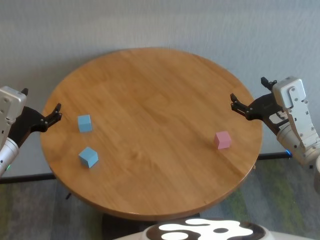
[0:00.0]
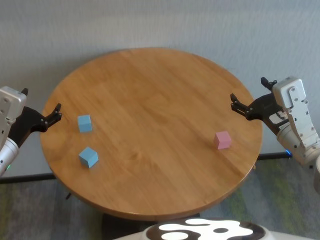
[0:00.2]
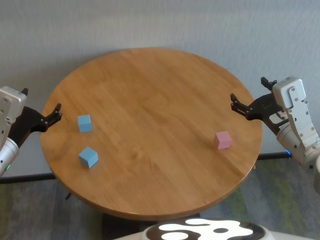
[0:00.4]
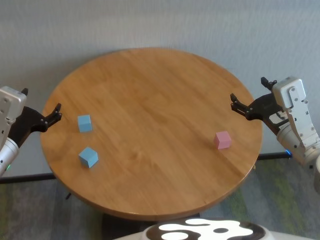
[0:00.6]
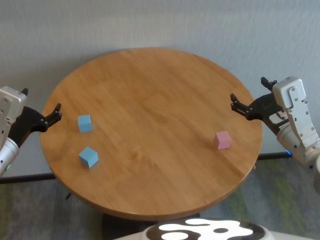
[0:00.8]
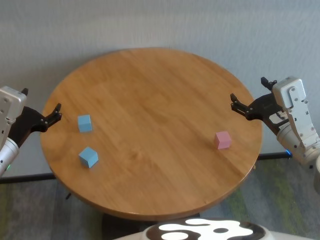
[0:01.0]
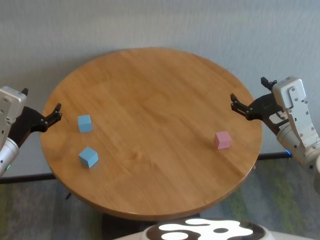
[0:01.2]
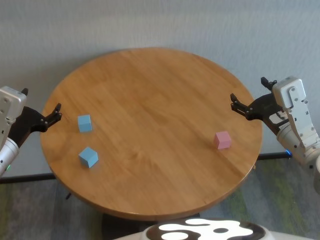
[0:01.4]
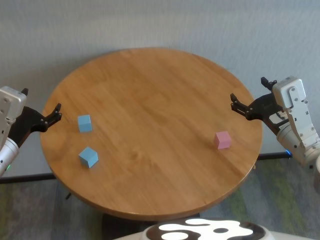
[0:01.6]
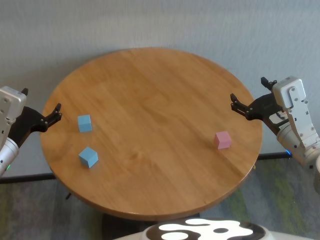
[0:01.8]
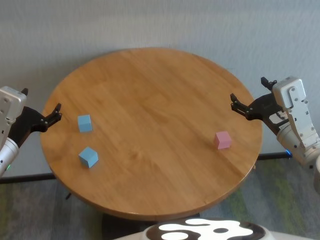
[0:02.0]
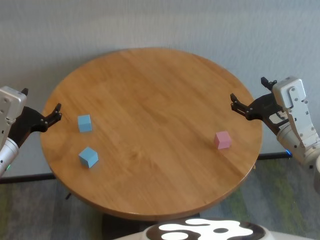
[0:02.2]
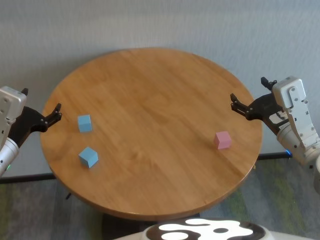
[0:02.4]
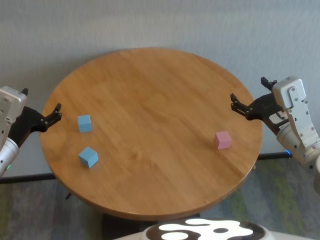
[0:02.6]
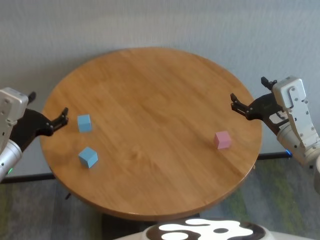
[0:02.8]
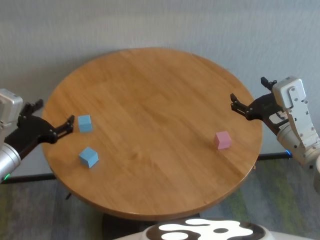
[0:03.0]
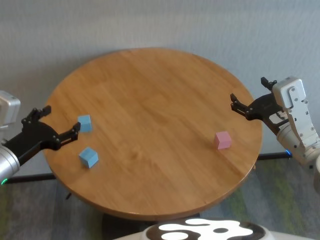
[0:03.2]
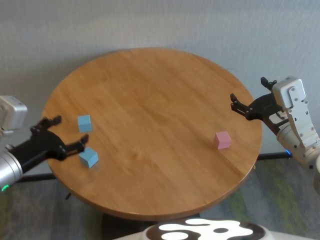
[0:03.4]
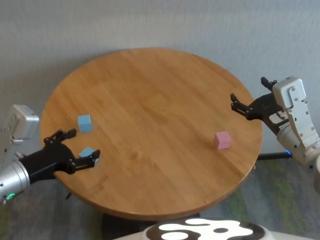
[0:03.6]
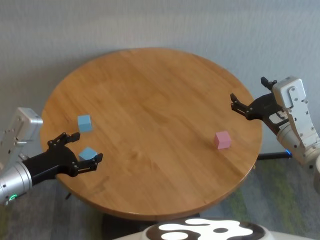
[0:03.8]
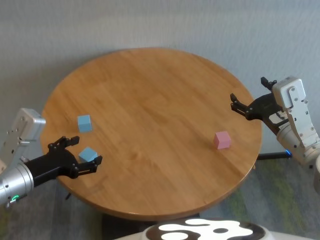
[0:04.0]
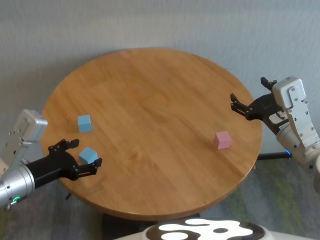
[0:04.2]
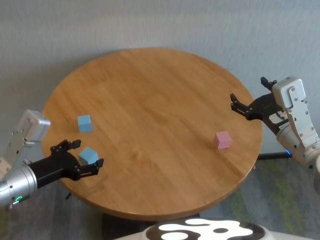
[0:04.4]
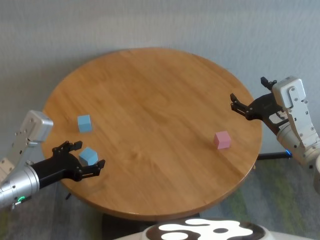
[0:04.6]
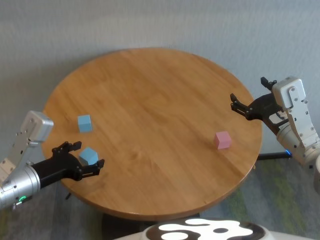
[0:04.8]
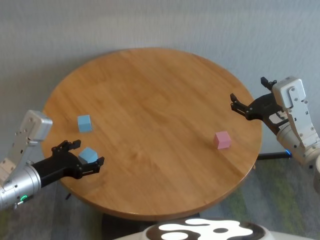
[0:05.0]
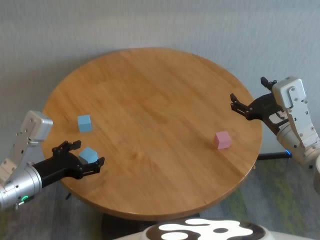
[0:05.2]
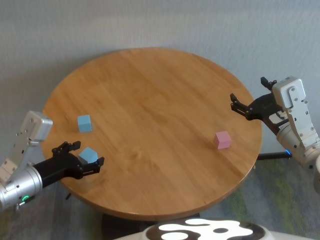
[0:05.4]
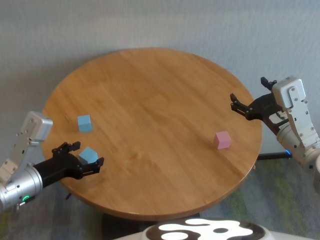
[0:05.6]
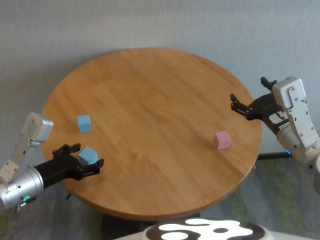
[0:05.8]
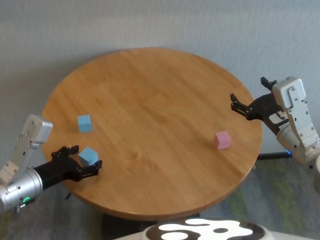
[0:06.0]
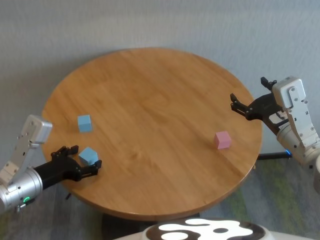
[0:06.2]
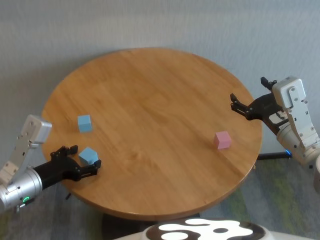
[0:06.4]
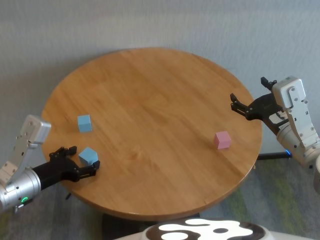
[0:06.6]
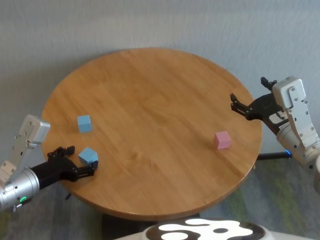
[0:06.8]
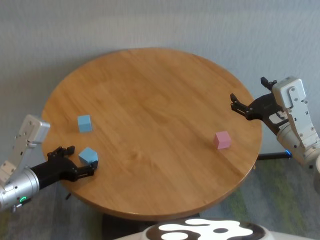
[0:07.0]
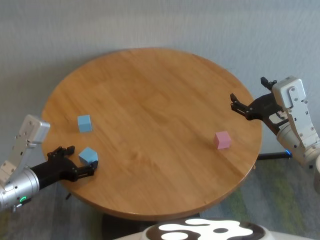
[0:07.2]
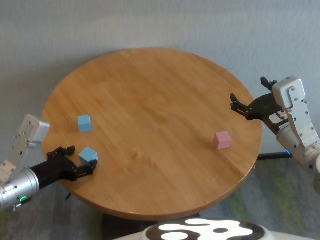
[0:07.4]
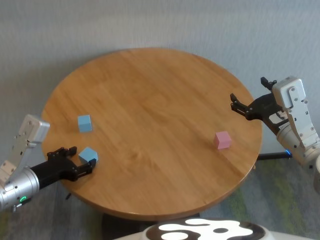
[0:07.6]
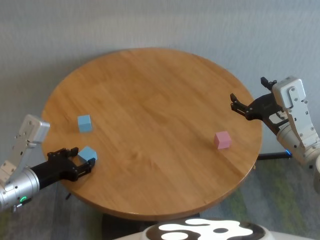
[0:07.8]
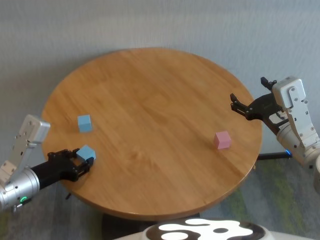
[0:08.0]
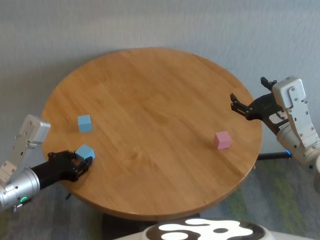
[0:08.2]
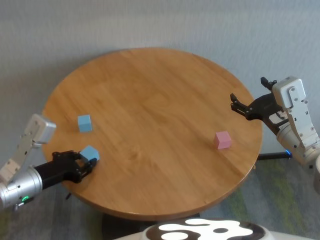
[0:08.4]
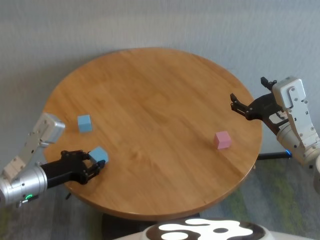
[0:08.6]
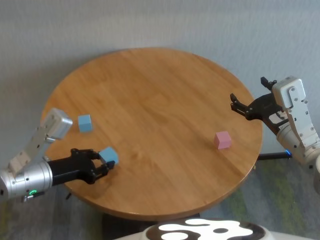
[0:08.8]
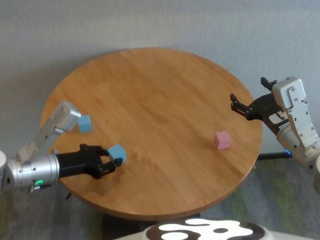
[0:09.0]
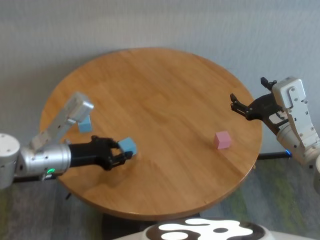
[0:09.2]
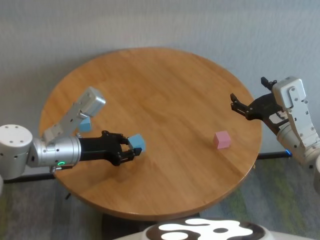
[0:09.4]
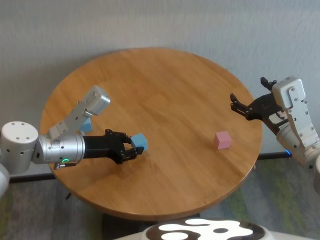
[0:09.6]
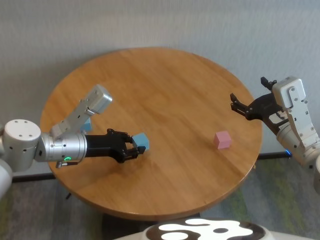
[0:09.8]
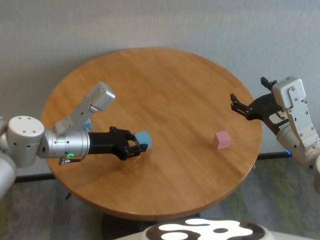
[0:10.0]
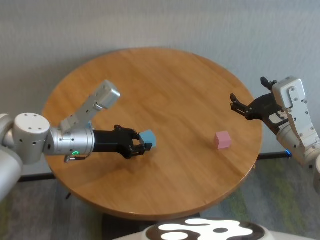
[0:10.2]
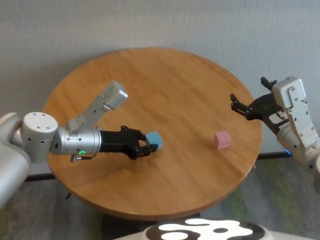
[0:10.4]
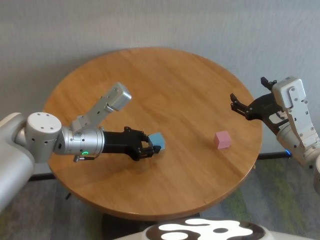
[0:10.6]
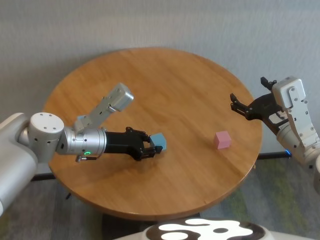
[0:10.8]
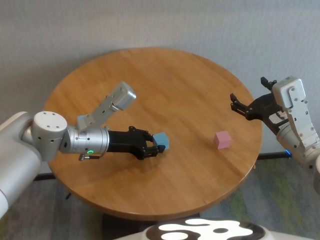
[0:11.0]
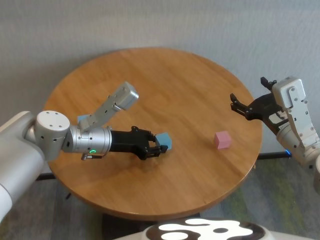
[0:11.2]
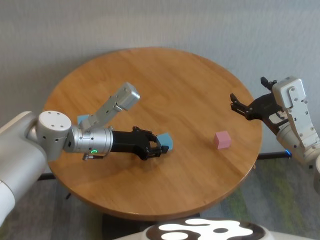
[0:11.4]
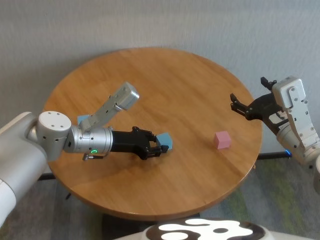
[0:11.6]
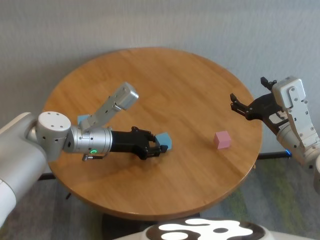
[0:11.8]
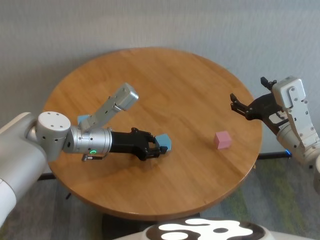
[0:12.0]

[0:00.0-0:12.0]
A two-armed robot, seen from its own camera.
Task of the whole recording: stack building blocks on the table.
Step, 0:00.0 to 0:08.0: Grasp the blue building block with left gripper.

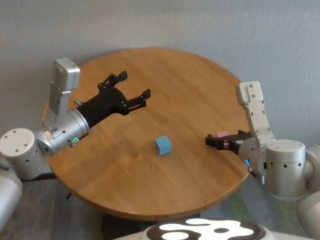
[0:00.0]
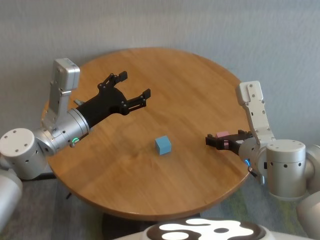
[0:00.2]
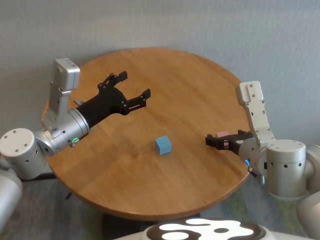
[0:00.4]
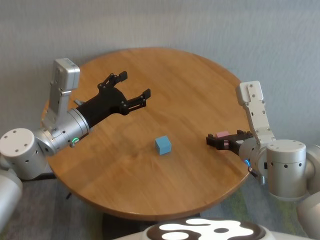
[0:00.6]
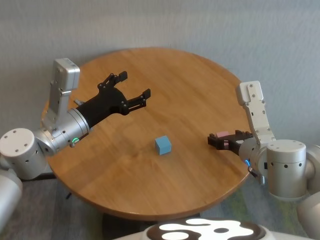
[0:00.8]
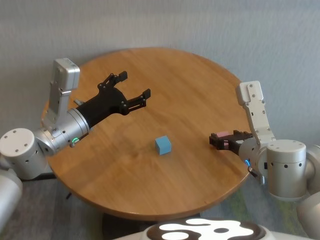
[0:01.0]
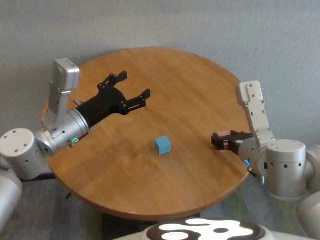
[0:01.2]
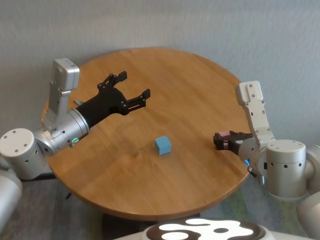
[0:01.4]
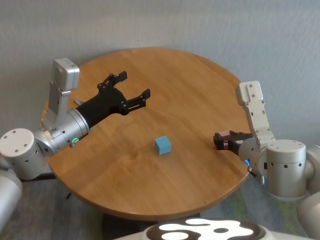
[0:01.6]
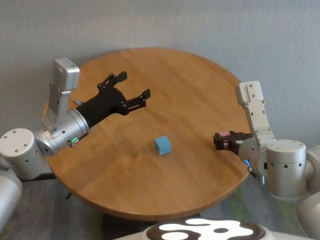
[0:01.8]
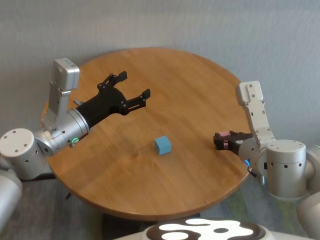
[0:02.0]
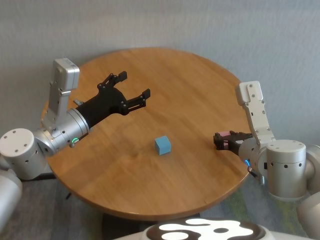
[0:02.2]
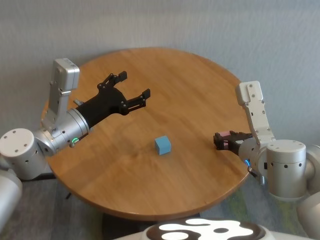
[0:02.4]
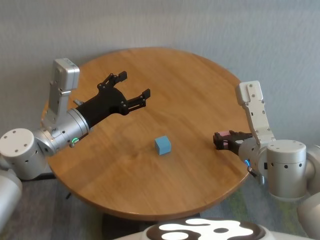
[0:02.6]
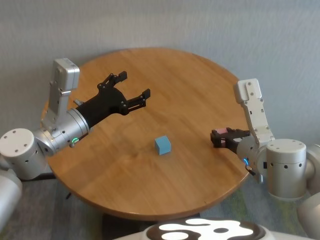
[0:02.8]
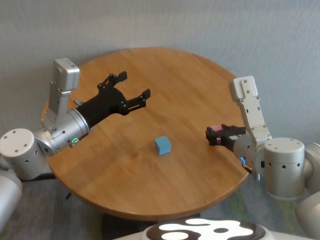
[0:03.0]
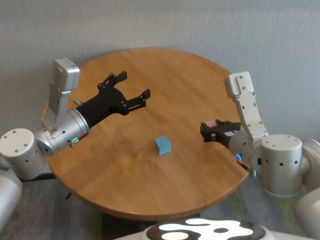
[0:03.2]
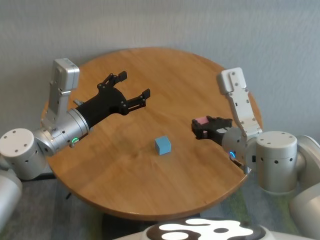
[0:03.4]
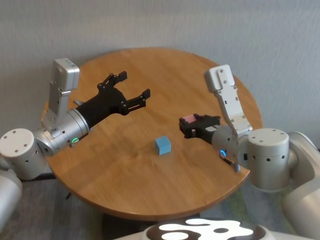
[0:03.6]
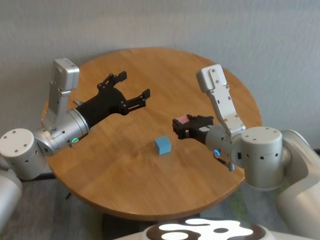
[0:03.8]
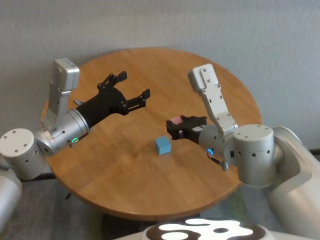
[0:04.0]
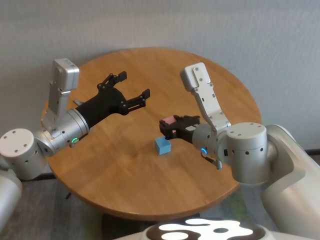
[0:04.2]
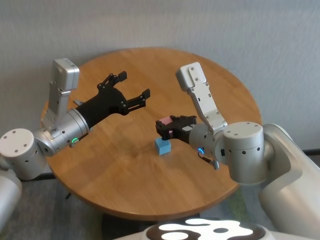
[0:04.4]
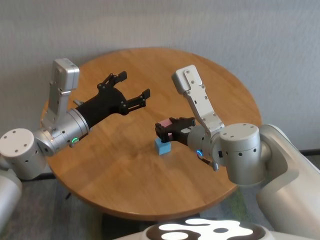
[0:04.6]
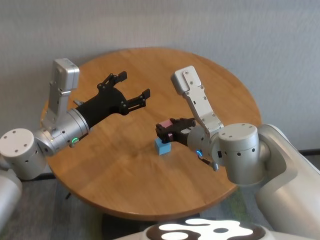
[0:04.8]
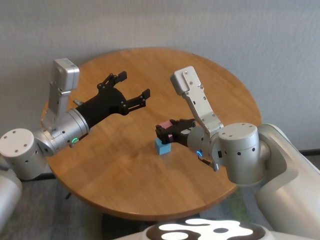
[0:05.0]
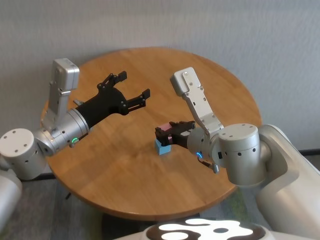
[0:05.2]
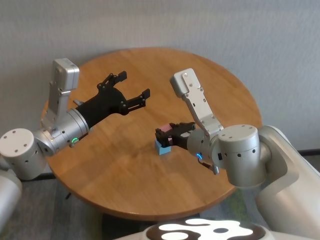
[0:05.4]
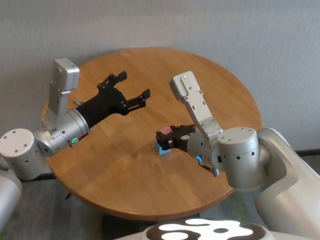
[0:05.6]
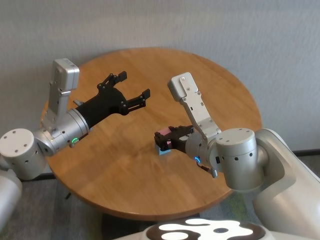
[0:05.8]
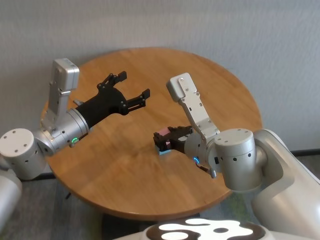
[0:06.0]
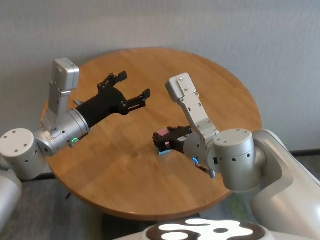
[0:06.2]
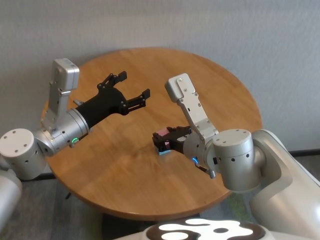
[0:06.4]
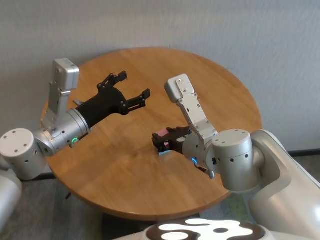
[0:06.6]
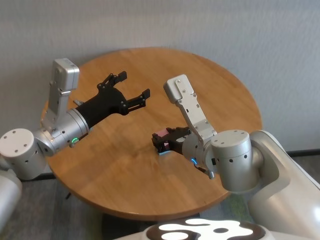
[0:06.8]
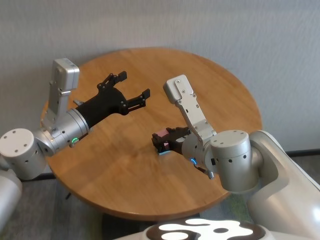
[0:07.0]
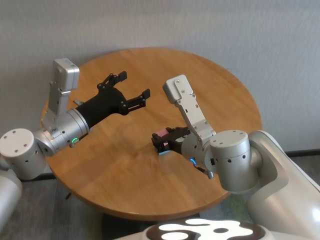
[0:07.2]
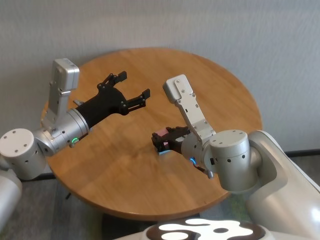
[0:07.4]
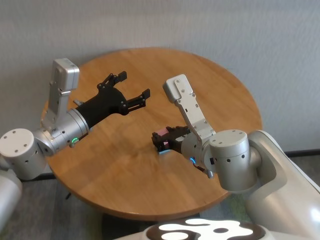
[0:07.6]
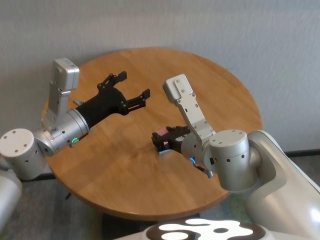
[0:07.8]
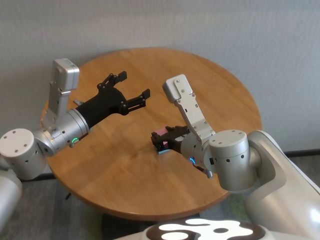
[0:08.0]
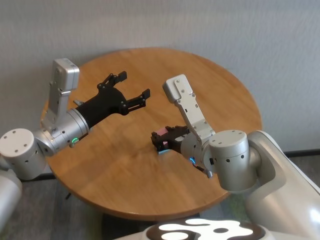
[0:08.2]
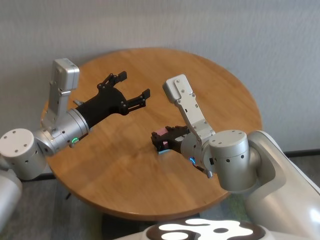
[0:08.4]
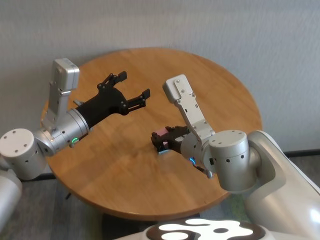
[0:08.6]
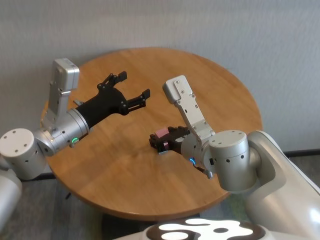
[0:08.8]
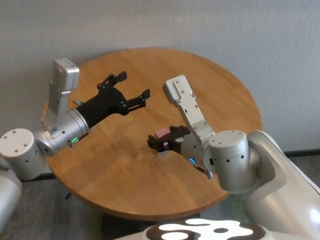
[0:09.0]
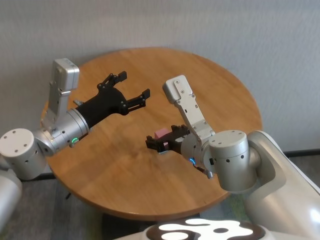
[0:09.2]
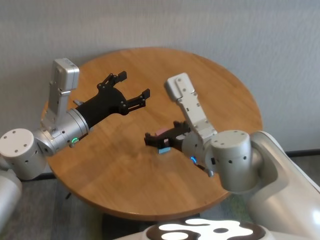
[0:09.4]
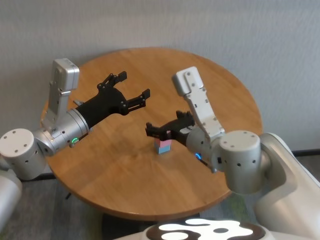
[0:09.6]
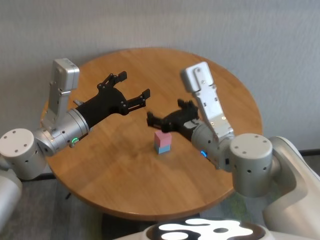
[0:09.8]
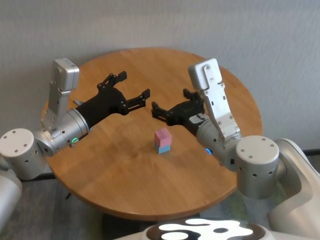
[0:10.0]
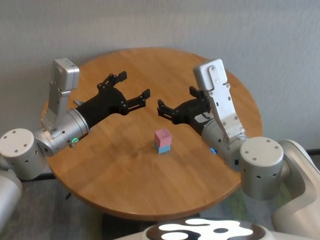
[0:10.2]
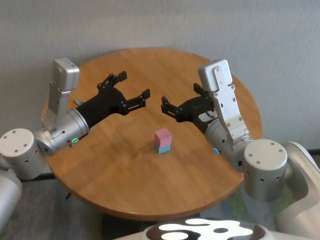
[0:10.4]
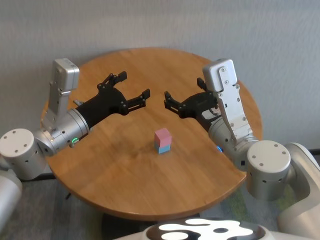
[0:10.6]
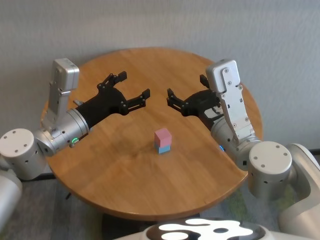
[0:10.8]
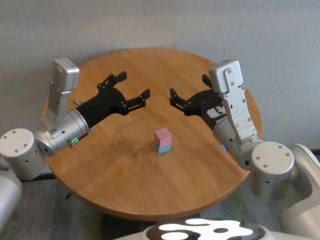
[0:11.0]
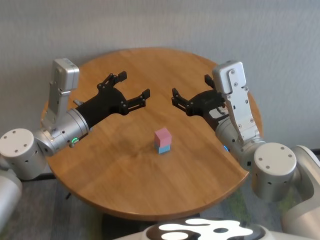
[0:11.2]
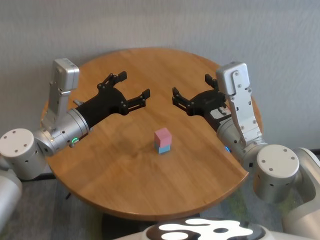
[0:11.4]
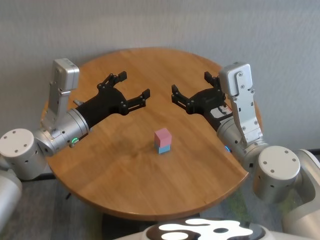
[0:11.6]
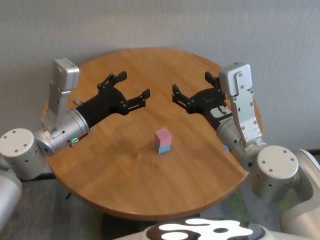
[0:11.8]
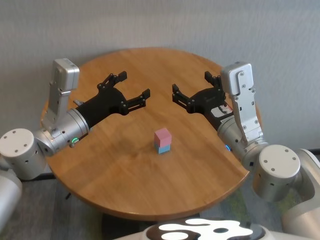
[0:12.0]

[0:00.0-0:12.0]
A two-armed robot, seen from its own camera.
Task of the whole recording: stack building blocks on the table.
Step, 0:01.4 to 0:08.8: Place the pink building block on the blue building blocks with right gripper.
